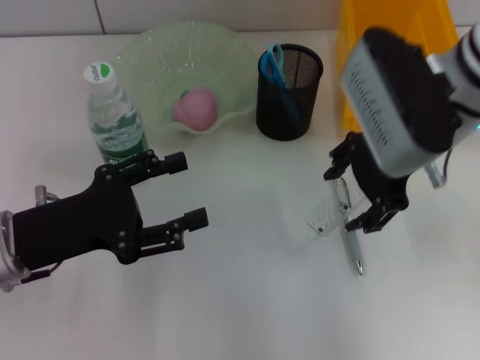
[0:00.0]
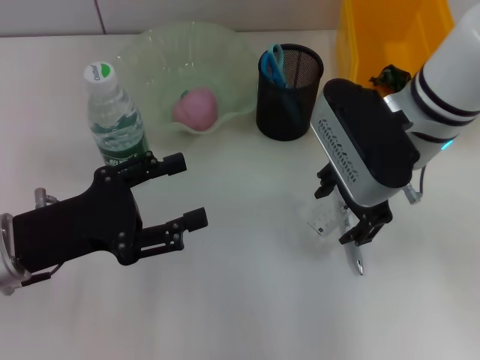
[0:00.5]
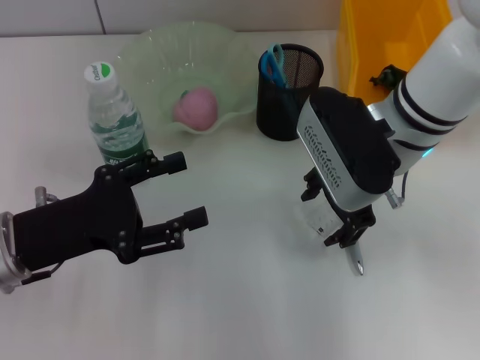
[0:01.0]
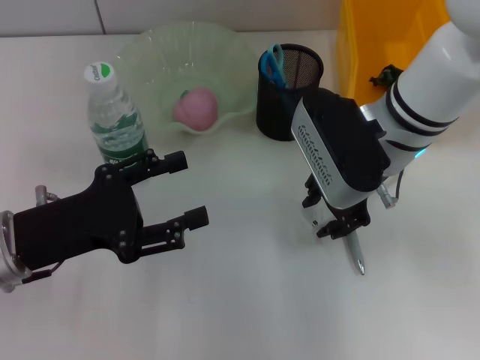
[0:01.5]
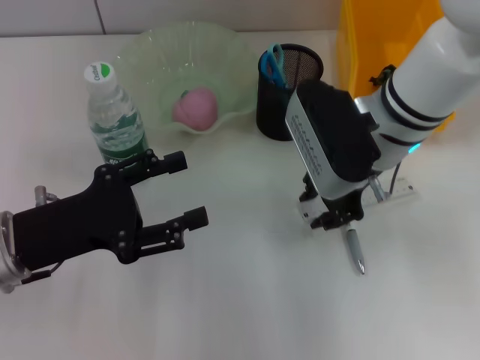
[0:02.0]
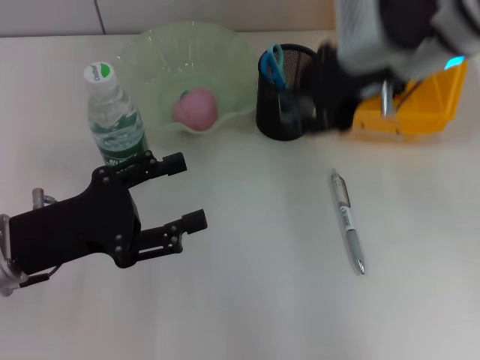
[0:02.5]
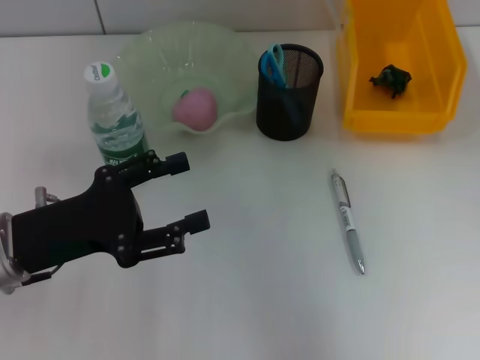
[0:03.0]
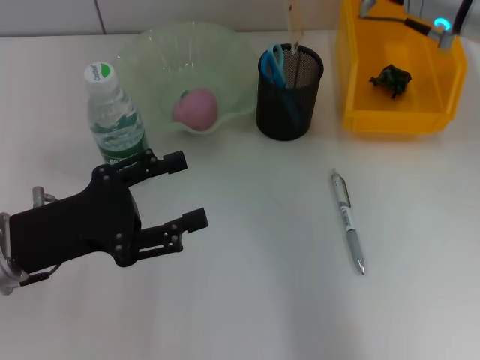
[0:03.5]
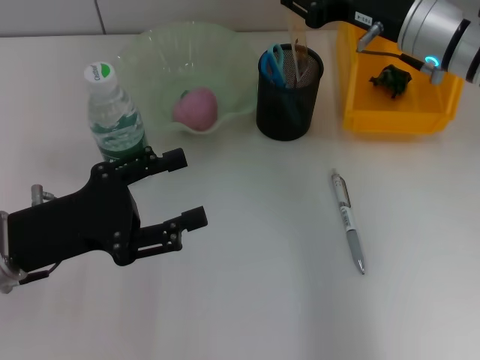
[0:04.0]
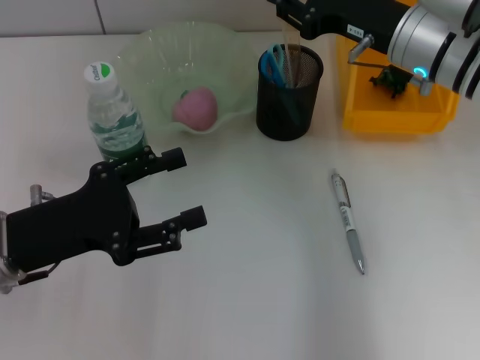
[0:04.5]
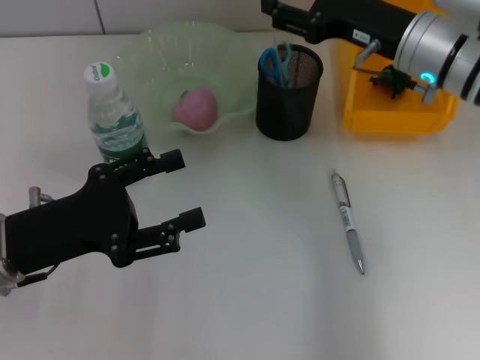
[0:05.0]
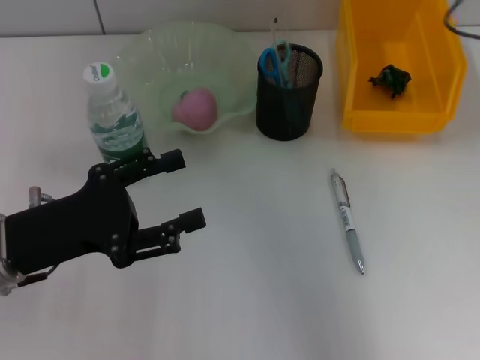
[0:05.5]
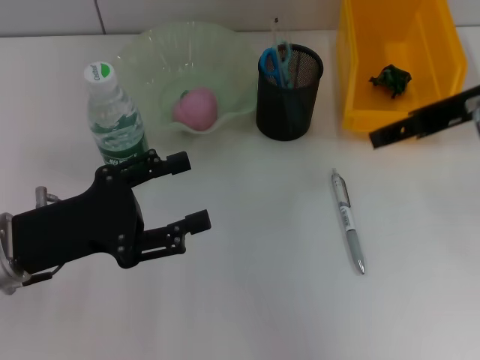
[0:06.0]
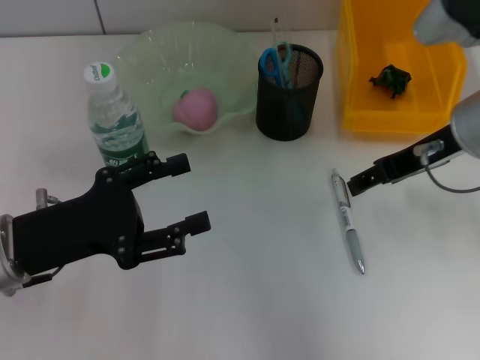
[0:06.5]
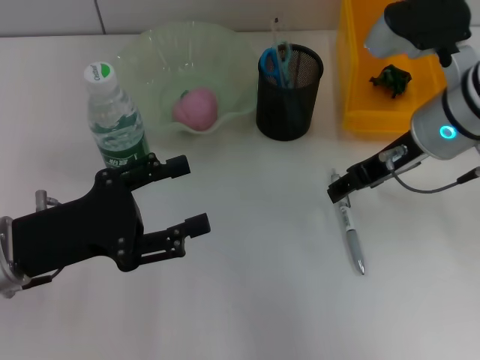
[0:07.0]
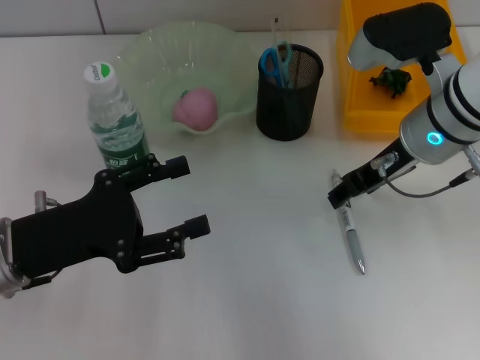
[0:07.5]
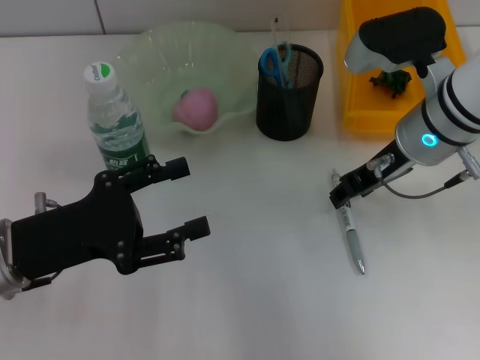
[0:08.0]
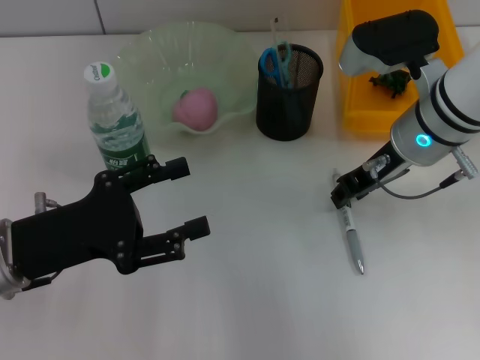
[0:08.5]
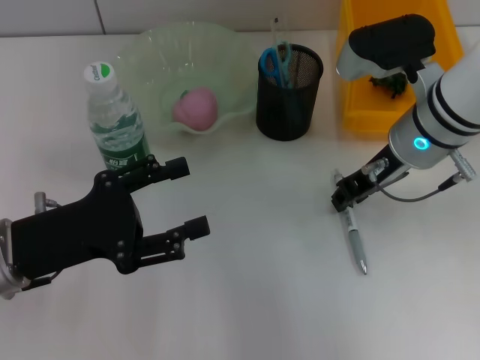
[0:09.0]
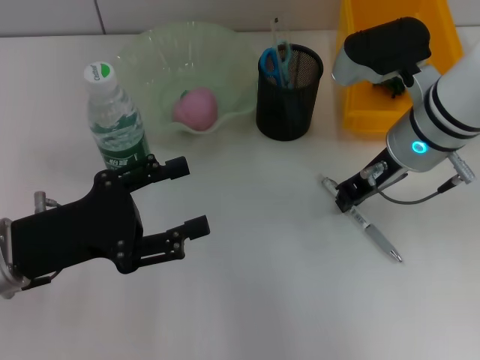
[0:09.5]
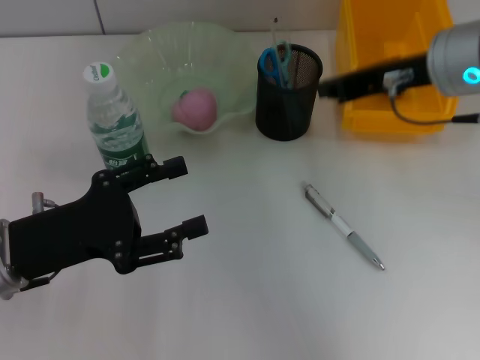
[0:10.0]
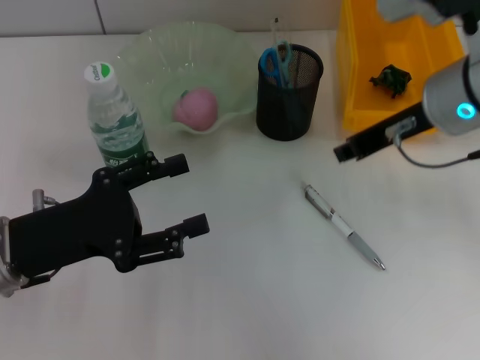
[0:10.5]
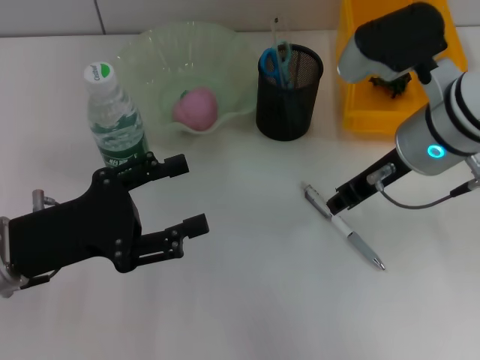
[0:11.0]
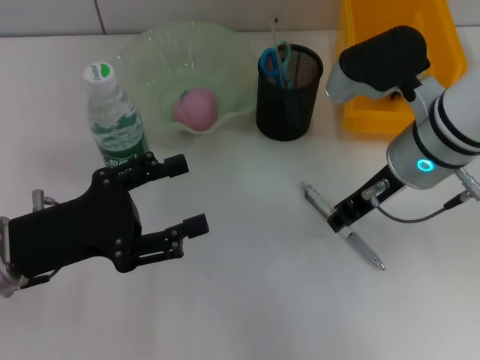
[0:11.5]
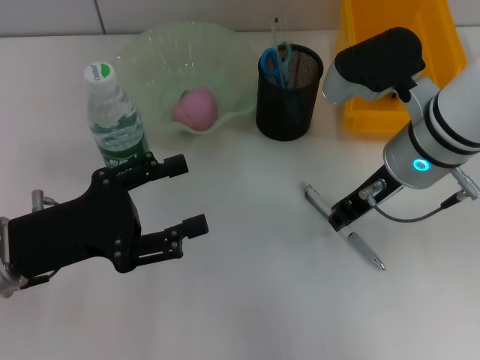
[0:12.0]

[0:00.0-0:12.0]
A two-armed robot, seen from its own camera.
Step, 0:02.0 to 0:04.5: Place the ruler into the pen holder with the right hand.
0:00.0 to 0:02.0: The right gripper goes about 5 cm downward, and closes.
0:02.0 to 0:04.0: The right gripper shifts roughly 5 cm to the right, and moves about 15 cm upward and comes back.
0:04.0 to 0:06.0: The right gripper goes some 10 cm backward and upward, and opens.
0:06.0 to 0:08.0: The right gripper moves downward and to the left, roughly 10 cm.
0:08.0 to 0:10.0: The right gripper moves upward, some 10 cm, and closes.
0:10.0 to 0:12.0: The right gripper moves downward, about 10 cm.

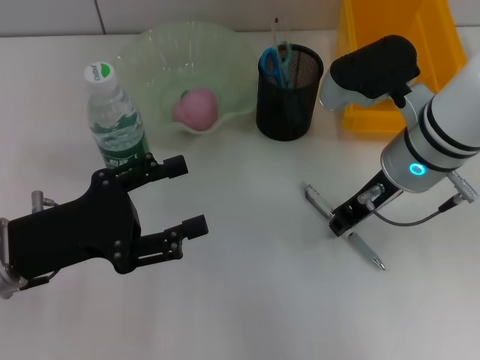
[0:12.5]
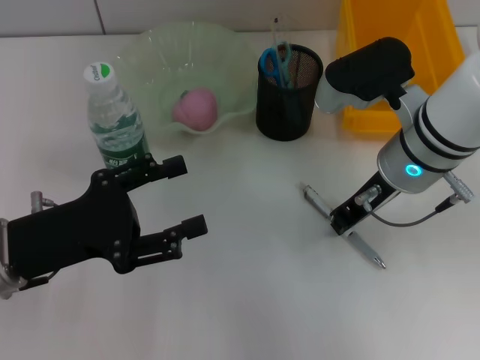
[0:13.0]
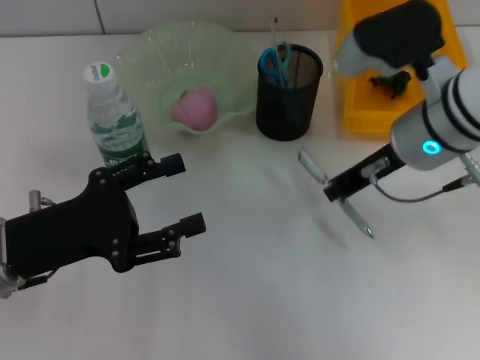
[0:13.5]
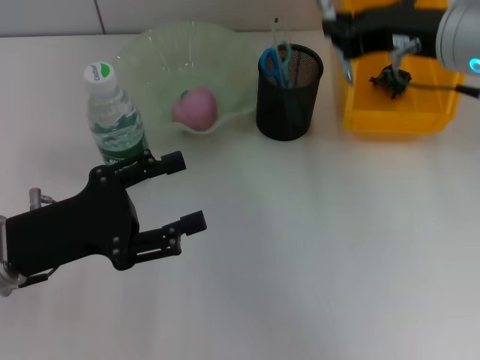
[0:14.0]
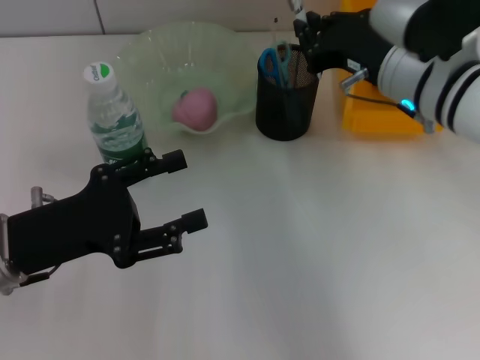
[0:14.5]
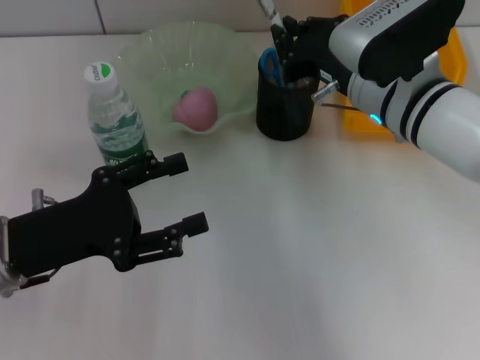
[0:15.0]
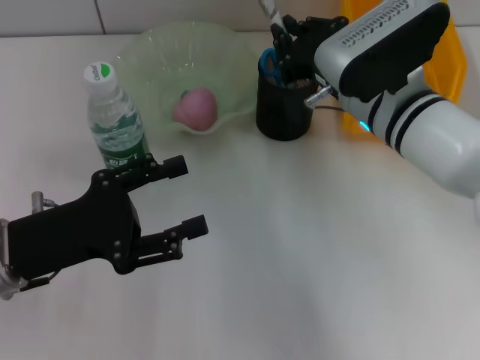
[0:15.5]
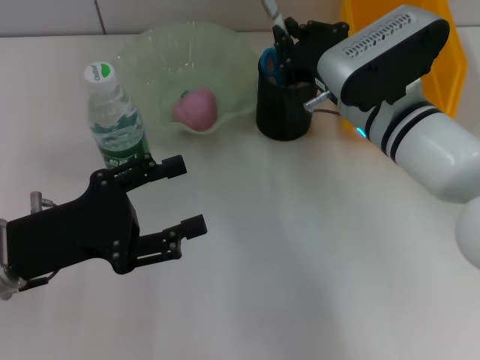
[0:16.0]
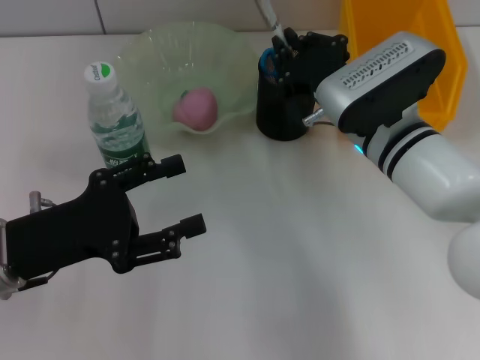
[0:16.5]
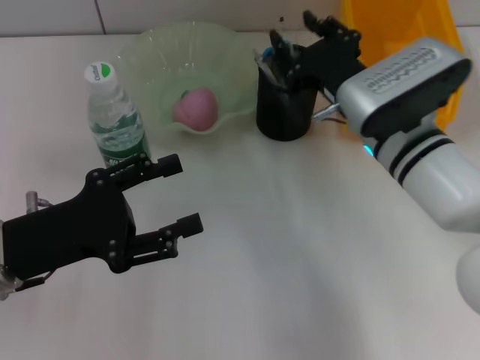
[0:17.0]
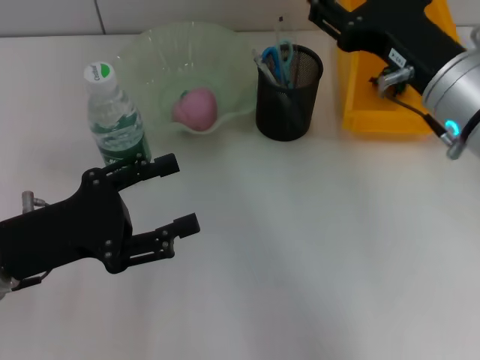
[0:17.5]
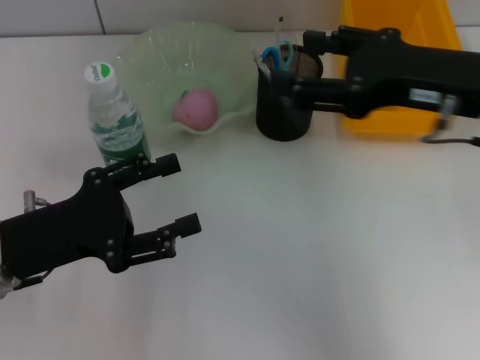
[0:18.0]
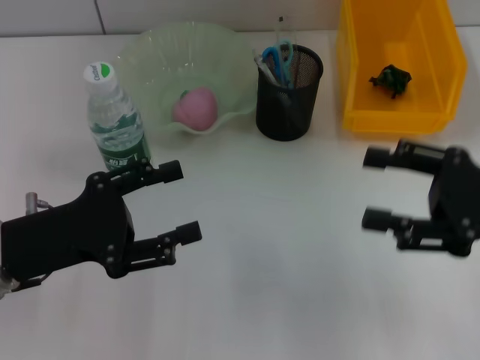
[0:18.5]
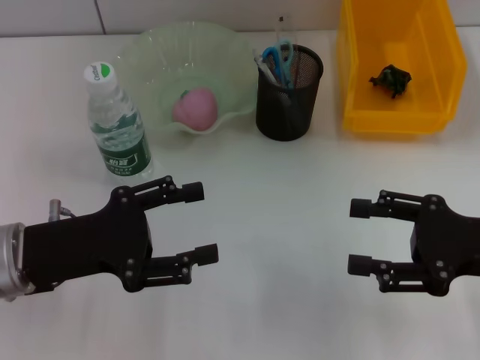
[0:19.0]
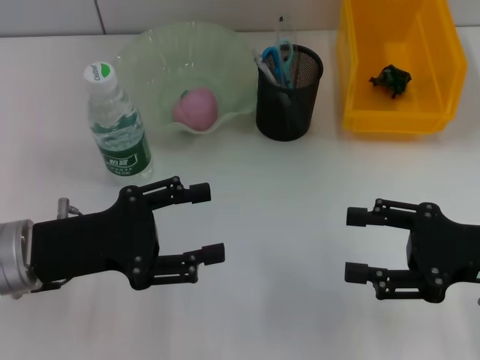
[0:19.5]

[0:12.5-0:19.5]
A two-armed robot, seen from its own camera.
Step, 0:13.5 to 0:16.5: Place the gray spring-action pen into the pen holder with the right hand.
0:12.5 to 0:14.5: The right gripper travels upward and back again, approximately 10 cm each way.
0:14.5 to 0:16.0: The right gripper ends up some 5 cm from where it was.
0:16.0 to 0:17.5: The right gripper moves upward and backward, approximately 10 cm, and opens.
0:17.5 to 0:19.5: The right gripper travels to the right, downward and backward by about 15 cm.
